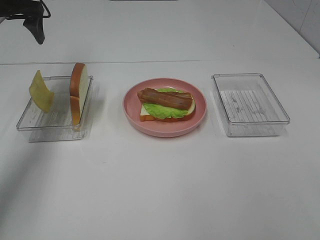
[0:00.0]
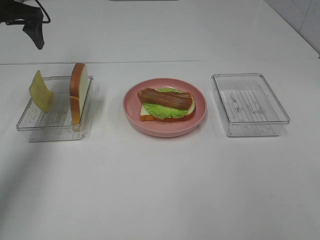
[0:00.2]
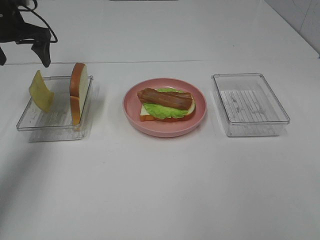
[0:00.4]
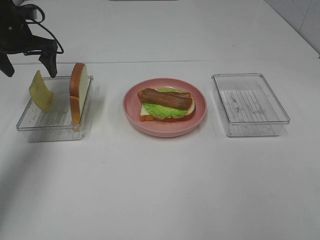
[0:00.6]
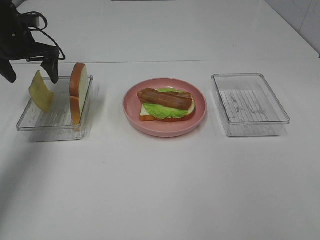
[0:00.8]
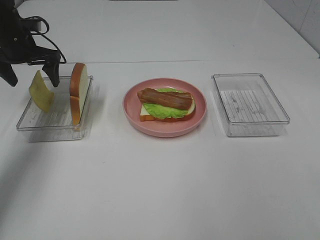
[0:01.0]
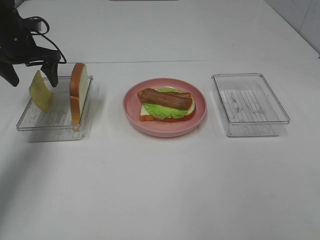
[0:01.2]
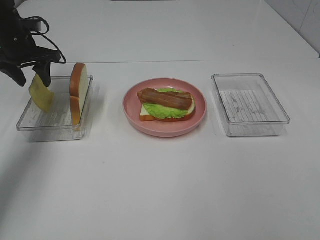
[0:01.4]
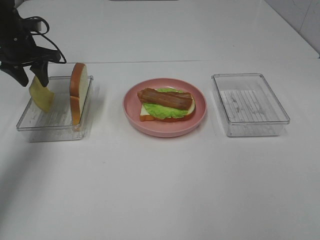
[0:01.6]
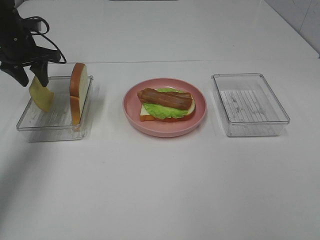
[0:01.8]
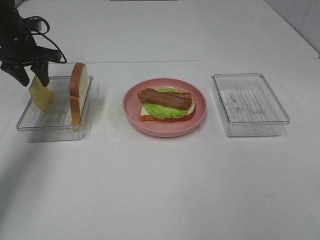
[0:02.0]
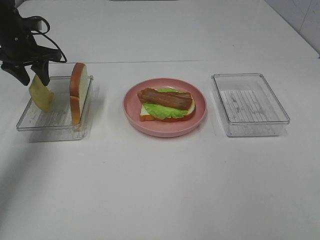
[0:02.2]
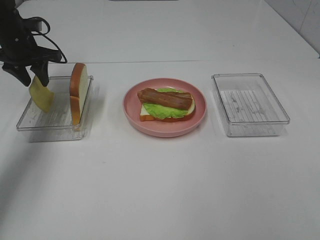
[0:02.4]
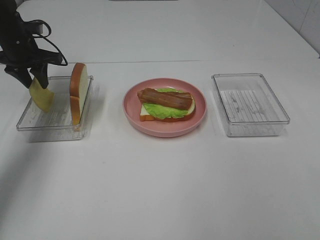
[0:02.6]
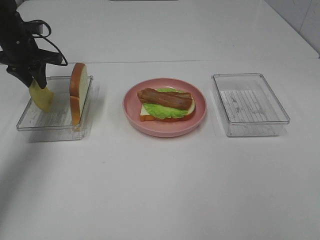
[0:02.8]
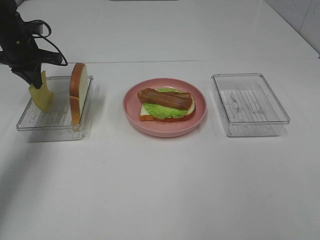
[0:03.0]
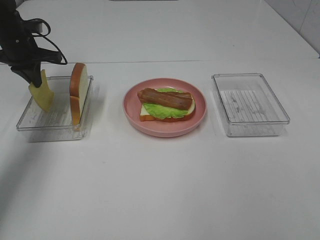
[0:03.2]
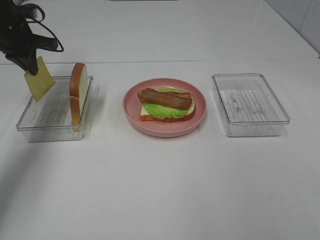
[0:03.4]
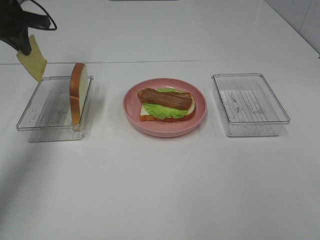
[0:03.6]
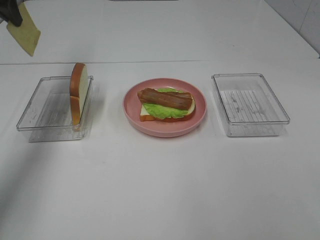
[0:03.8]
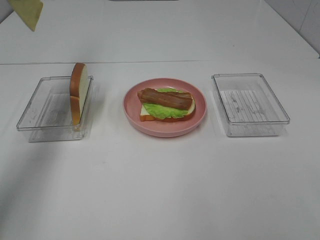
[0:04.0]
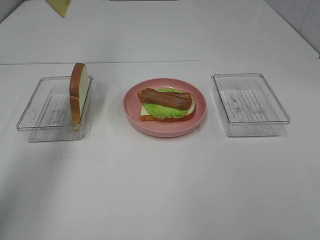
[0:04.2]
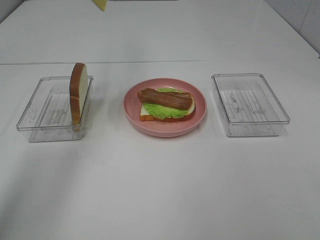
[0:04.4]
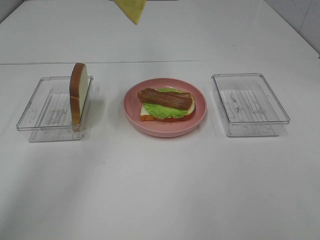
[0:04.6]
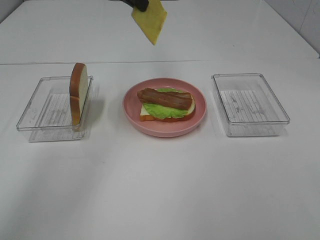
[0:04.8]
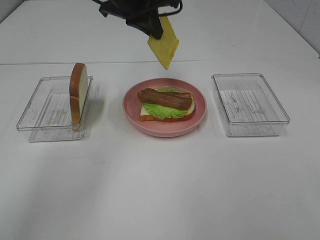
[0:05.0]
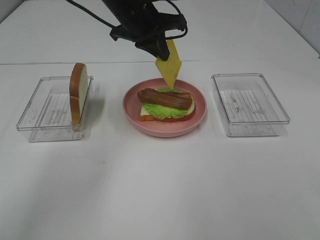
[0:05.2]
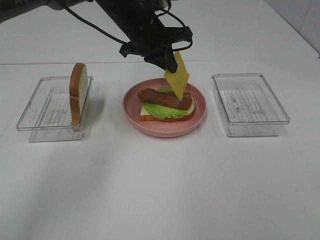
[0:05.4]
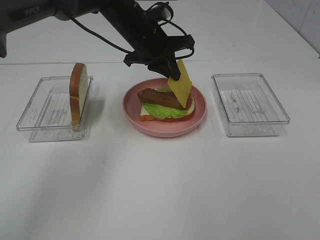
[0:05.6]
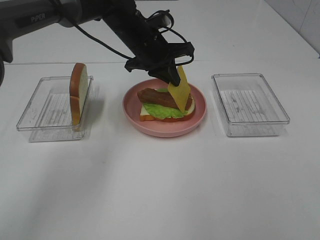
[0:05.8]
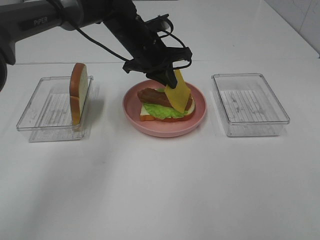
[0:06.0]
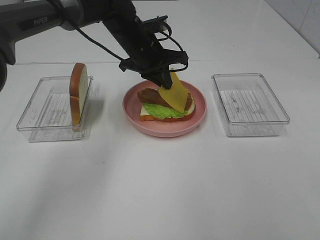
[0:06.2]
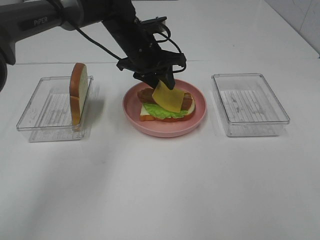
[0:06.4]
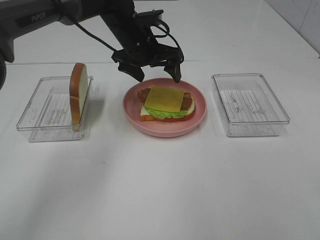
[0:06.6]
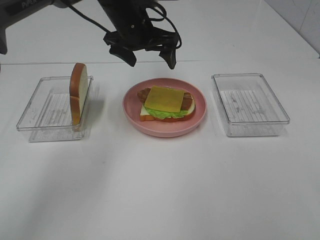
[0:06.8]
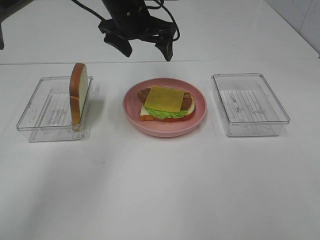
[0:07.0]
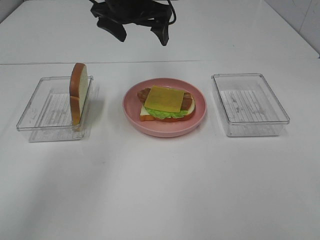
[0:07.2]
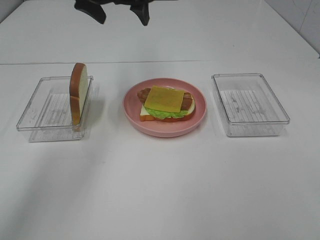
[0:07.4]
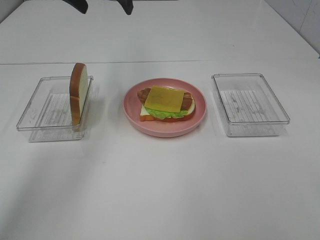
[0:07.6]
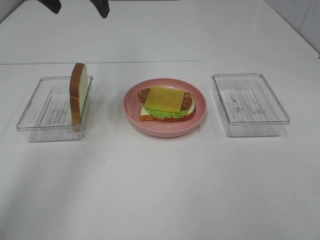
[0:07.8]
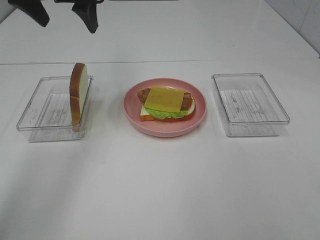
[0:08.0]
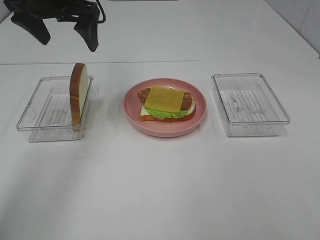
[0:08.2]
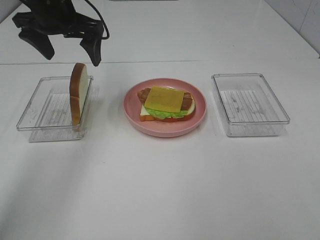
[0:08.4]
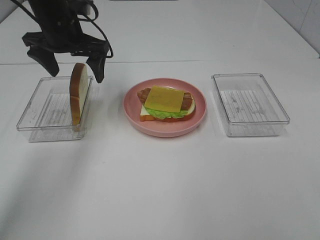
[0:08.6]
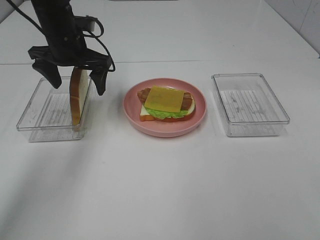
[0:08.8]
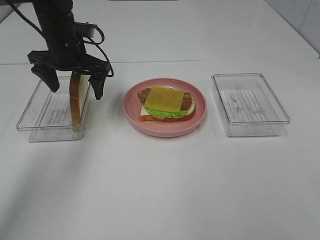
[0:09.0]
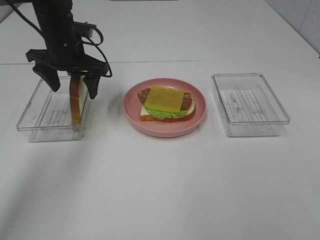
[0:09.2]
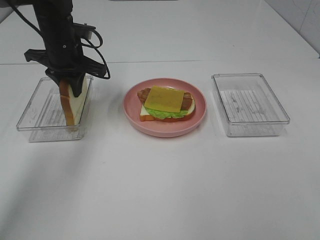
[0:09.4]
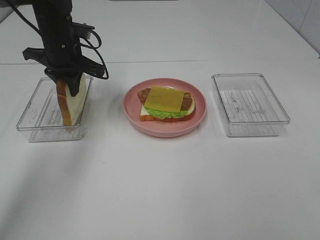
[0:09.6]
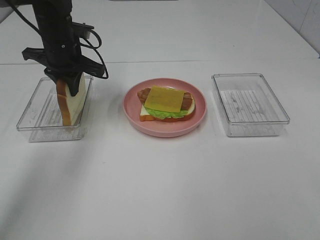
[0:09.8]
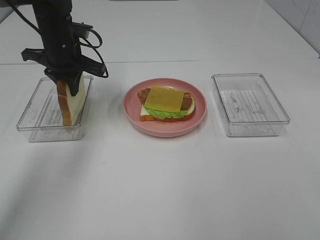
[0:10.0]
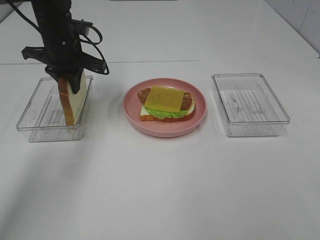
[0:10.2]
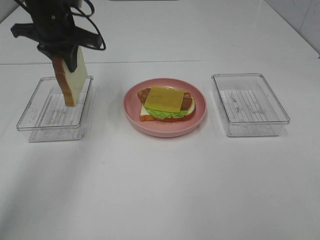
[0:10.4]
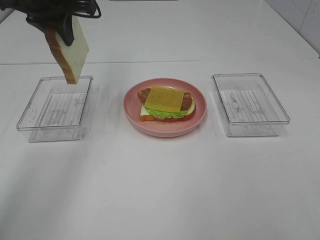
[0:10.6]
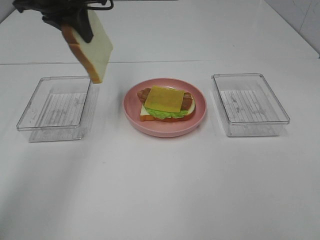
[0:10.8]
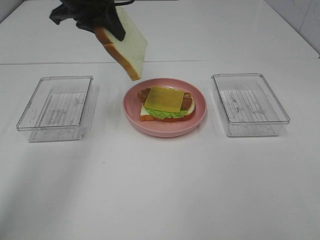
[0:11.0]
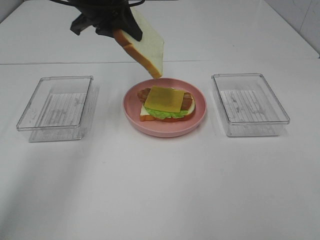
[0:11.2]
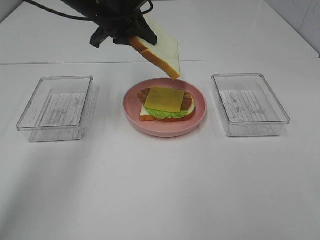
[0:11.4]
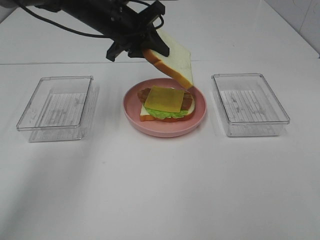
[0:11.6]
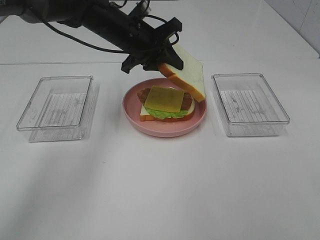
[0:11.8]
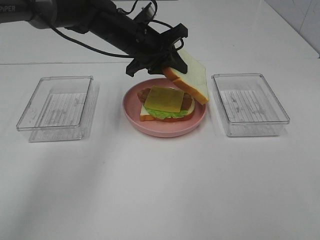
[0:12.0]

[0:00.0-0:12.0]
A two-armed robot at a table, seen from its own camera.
Task of the whole recording: Make sandwiches.
Step, 0:00.0 to 0:03.2: Left hand:grab the cheese slice.
Step, 0:03.4 to 0:06.6: Left hand:place the cheese slice on top of the bacon.
Step, 0:06.8 to 0:09.4: Left hand:grab the bread slice.
0:00.0 to 0:01.6: The left gripper is displaced downward by about 10 cm, and closes up.
0:01.6 to 0:03.0: The left gripper closes.
0:03.0 to 0:04.4: The left gripper heads upward and to the right, covering about 25 cm.
0:04.4 to 0:06.0: The left gripper travels downward and to the right by roughly 25 cm.
0:06.0 to 0:07.6: The left gripper moves upward and to the left, about 20 cm, and opens its fingers.
0:07.6 to 0:09.0: The left gripper moves downward, approximately 15 cm.
0:09.0 to 0:10.4: The left gripper shifts about 5 cm upward, and closes its fingers.
0:10.4 to 0:12.0: The left gripper moves to the right and downward, approximately 15 cm.

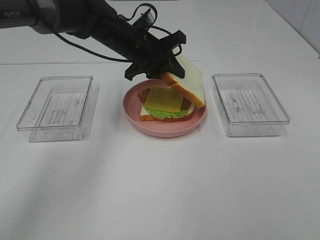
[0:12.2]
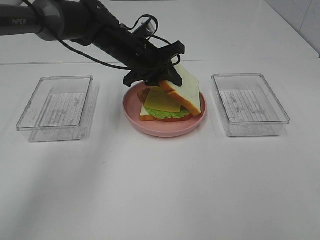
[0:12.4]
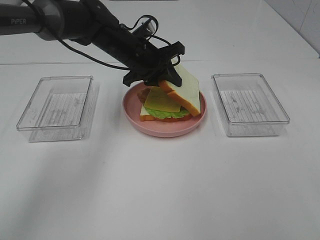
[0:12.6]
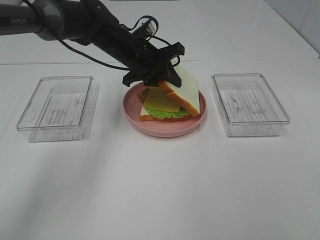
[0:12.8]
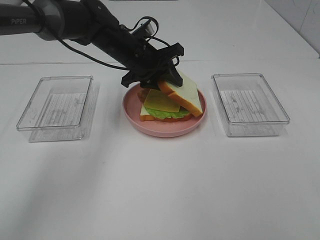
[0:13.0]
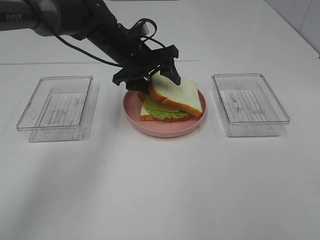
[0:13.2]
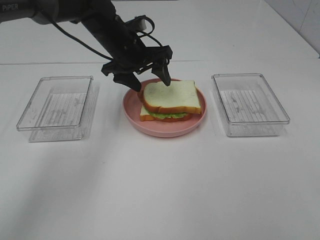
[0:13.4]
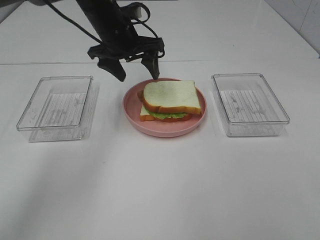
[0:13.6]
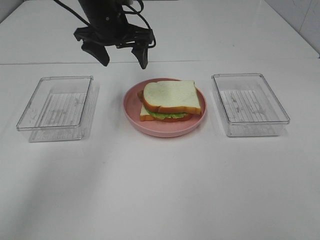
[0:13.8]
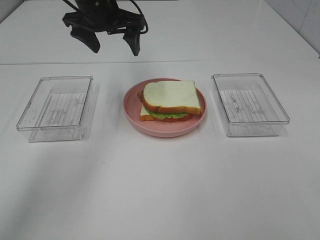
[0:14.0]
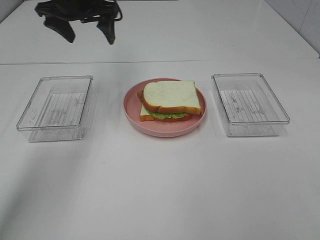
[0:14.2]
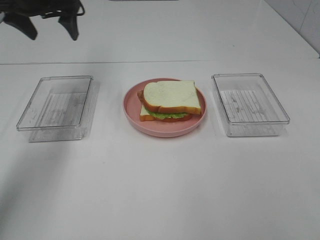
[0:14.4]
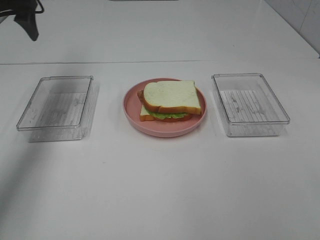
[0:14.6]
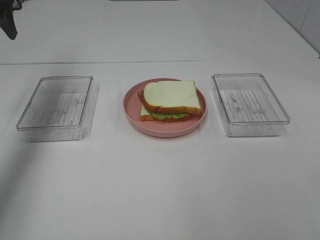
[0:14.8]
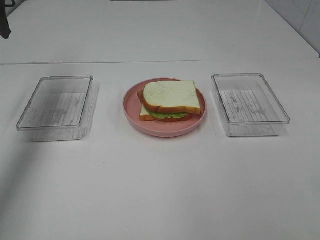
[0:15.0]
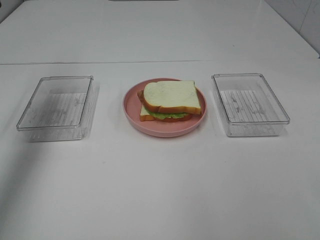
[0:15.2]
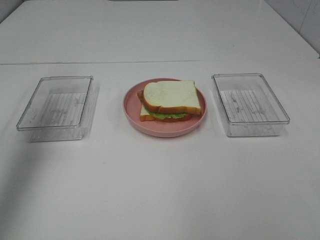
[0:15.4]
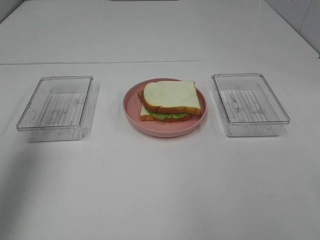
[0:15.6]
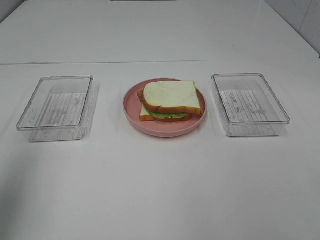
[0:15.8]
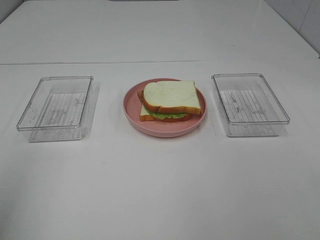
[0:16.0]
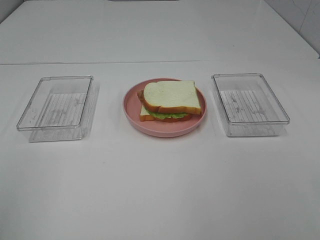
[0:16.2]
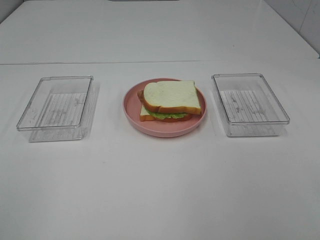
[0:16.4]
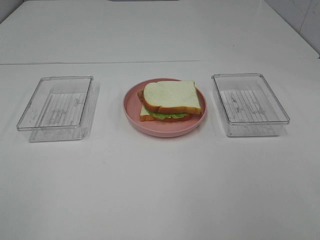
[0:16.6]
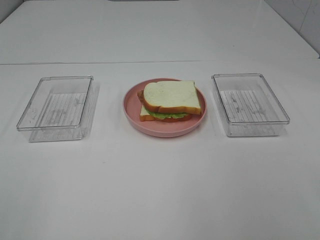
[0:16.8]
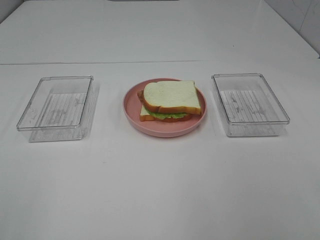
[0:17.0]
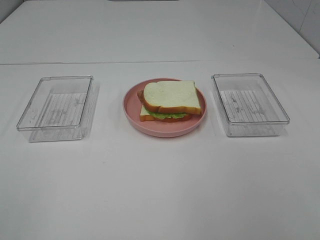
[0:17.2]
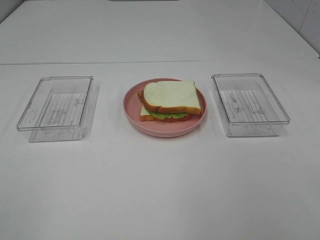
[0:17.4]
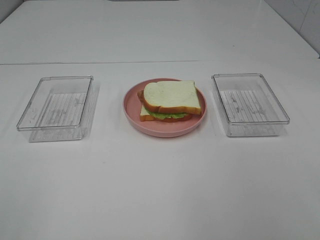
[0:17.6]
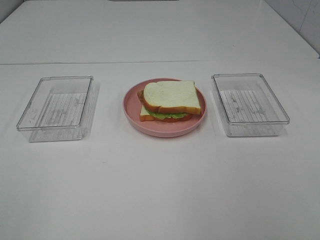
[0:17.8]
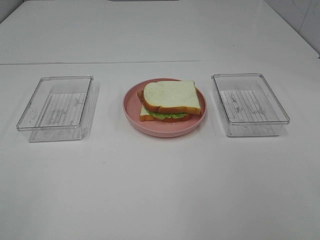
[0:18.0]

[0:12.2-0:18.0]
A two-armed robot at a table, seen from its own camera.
Task of the whole recording: Make sandwiches.
0:12.2 to 0:13.6: The left gripper shifts by roughly 5 cm, and opens up.
0:13.6 to 0:15.0: The left gripper goes some 25 cm to the left and upward.
0:15.0 to 0:16.6: The left gripper goes about 40 cm backward.

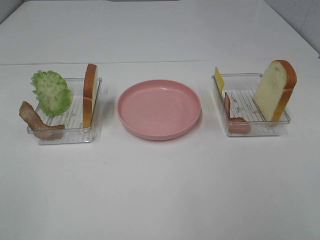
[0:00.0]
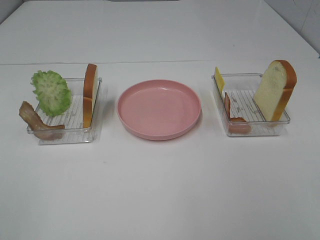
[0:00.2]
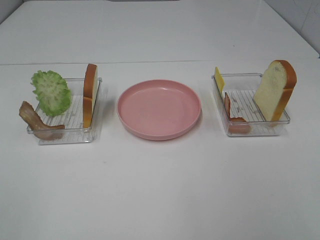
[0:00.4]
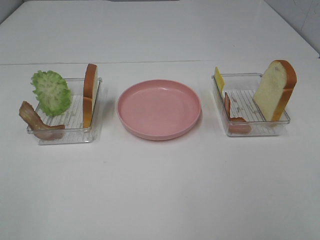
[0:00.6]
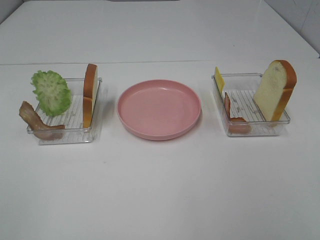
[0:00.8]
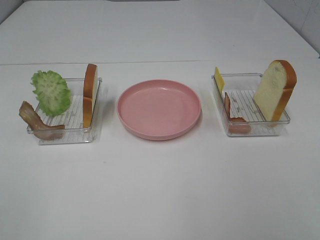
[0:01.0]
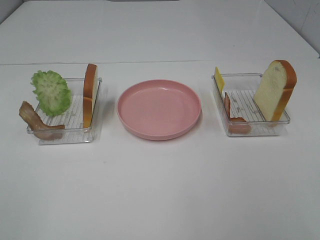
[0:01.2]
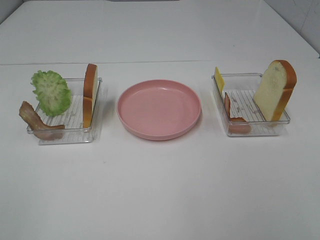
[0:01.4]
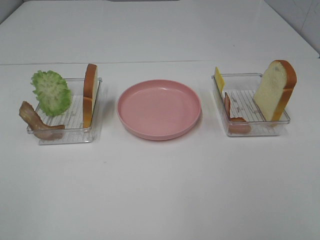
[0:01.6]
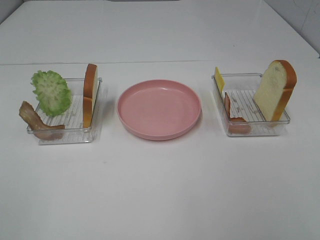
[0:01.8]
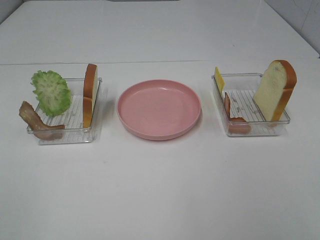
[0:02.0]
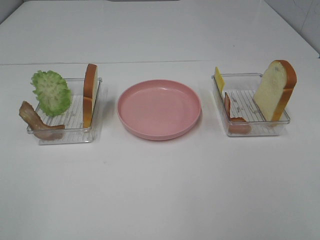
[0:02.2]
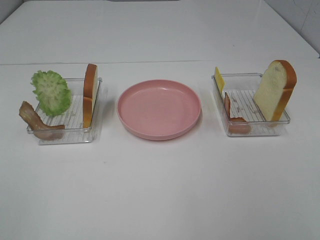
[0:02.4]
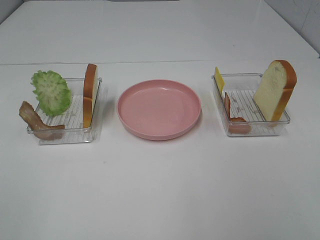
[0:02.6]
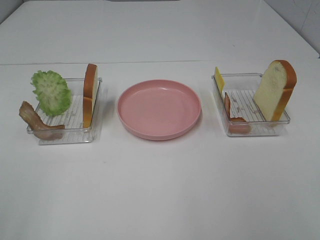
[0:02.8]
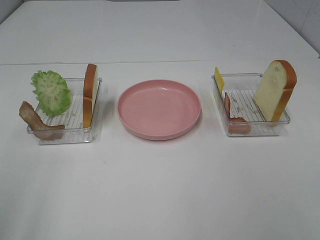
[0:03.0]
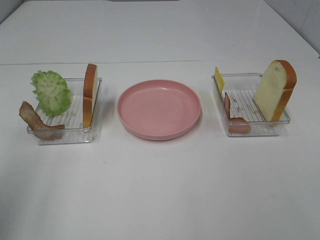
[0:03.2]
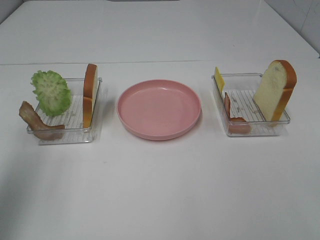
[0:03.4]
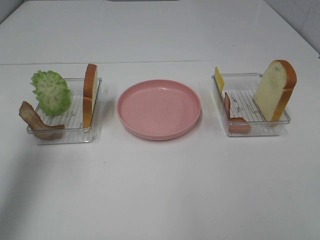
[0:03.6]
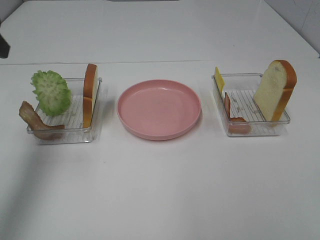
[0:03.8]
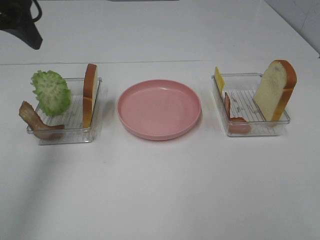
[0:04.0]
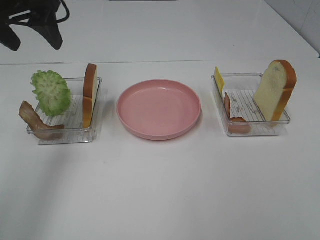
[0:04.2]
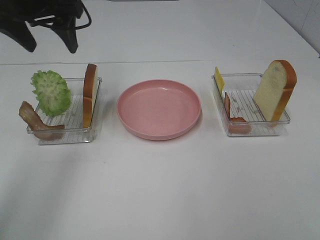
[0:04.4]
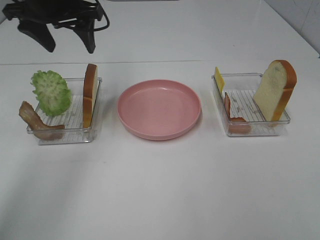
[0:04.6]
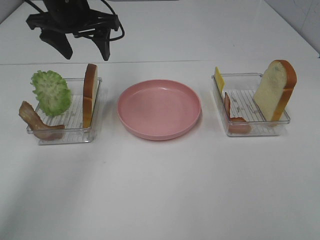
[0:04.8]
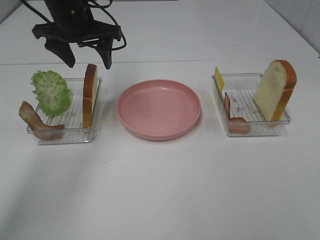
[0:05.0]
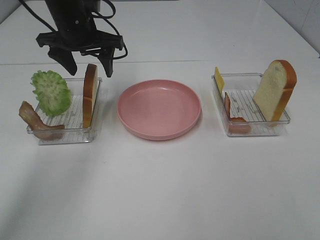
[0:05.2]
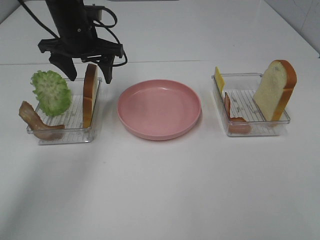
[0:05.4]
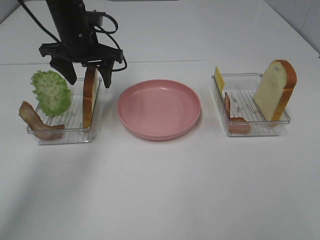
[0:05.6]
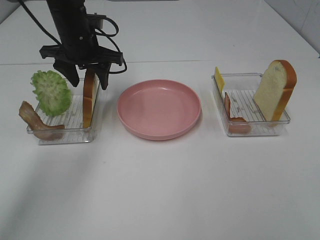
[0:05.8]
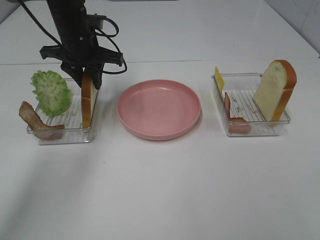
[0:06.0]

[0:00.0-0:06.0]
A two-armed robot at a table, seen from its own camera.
Task of the whole recording: Make sandwiches.
0:00.0 to 0:01.6: Both grippers stay put.
0:03.0 to 0:04.4: The left gripper travels forward by about 30 cm.
0:04.4 to 0:06.0: The left gripper goes approximately 10 cm downward and forward, and closes its fingers.
